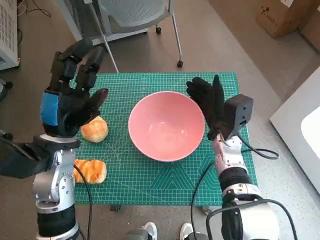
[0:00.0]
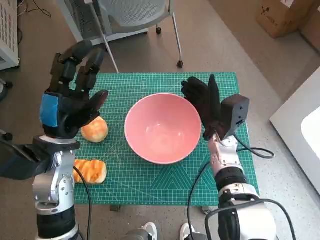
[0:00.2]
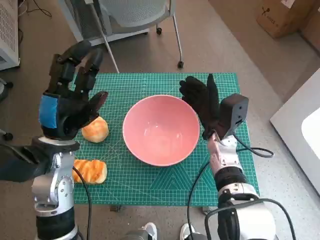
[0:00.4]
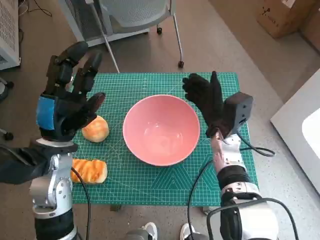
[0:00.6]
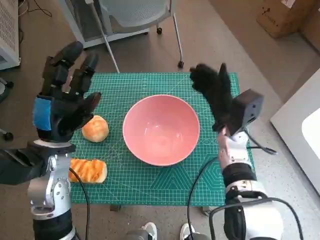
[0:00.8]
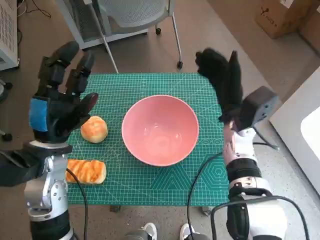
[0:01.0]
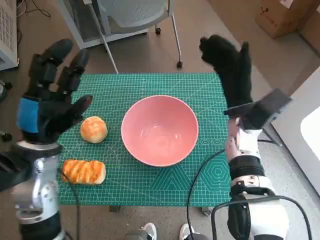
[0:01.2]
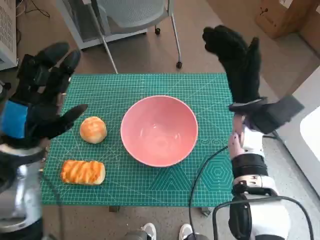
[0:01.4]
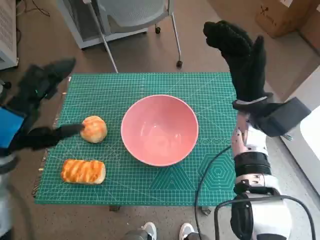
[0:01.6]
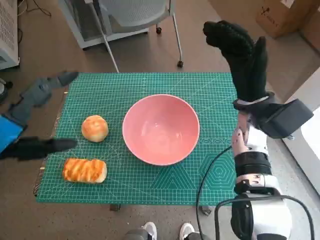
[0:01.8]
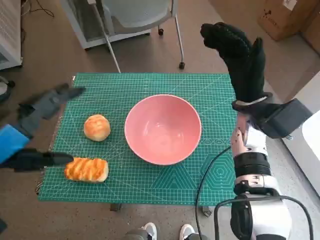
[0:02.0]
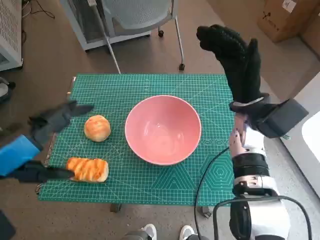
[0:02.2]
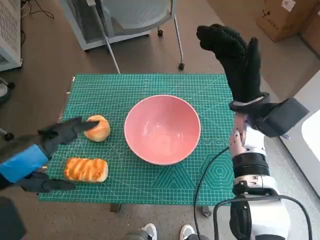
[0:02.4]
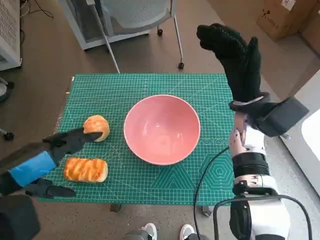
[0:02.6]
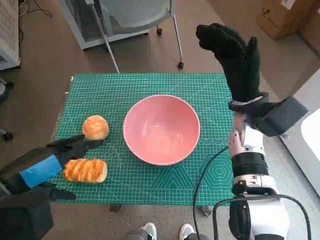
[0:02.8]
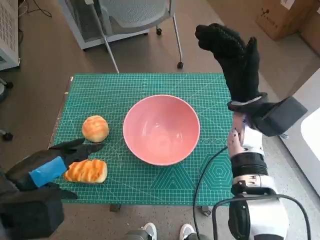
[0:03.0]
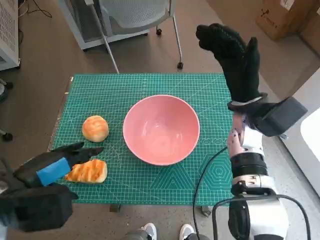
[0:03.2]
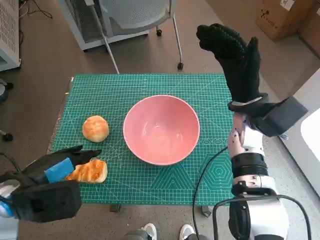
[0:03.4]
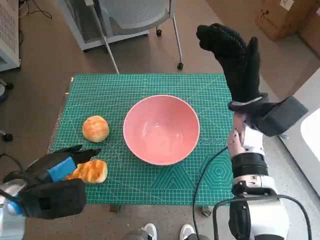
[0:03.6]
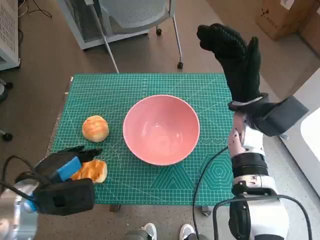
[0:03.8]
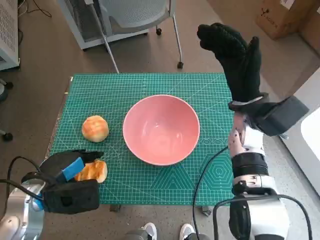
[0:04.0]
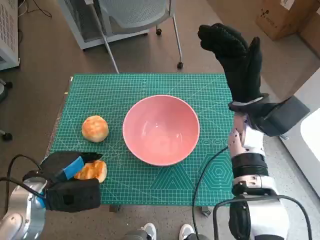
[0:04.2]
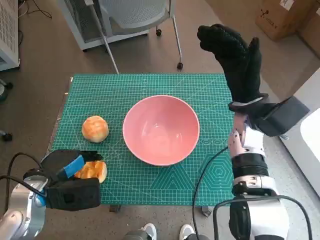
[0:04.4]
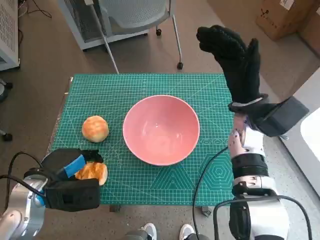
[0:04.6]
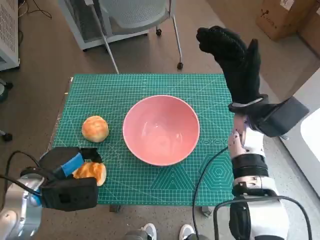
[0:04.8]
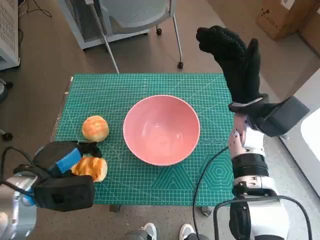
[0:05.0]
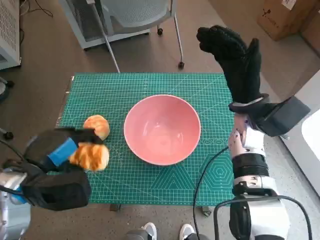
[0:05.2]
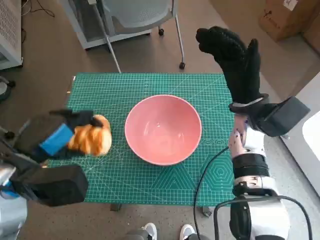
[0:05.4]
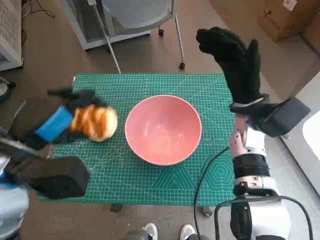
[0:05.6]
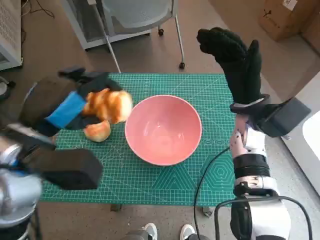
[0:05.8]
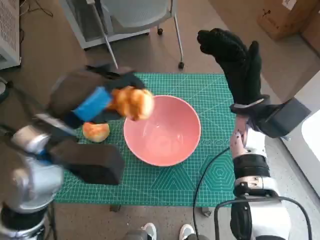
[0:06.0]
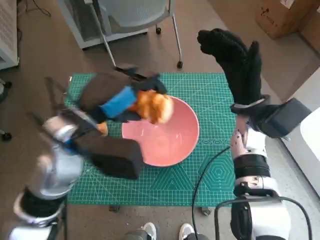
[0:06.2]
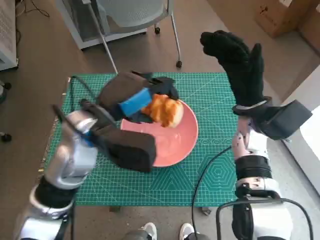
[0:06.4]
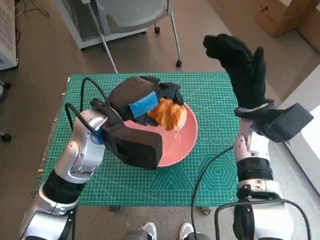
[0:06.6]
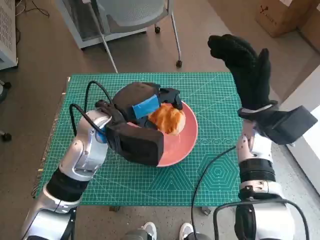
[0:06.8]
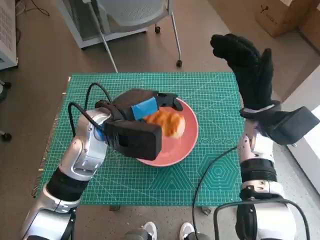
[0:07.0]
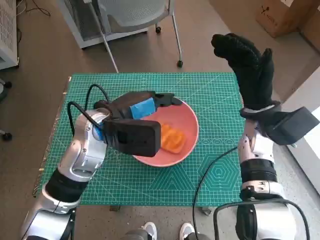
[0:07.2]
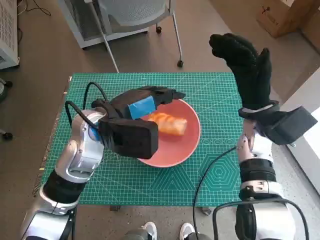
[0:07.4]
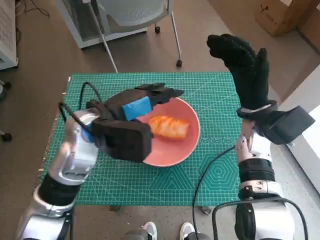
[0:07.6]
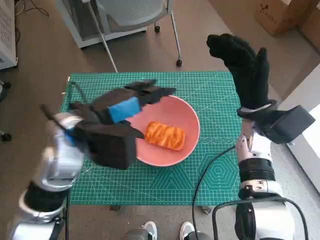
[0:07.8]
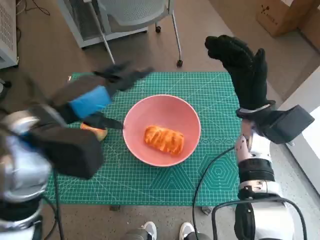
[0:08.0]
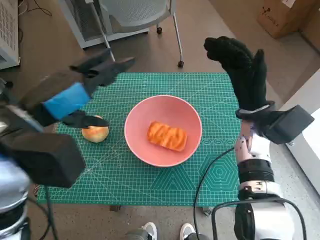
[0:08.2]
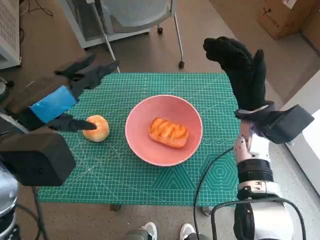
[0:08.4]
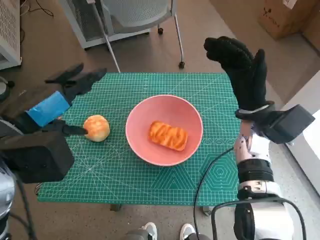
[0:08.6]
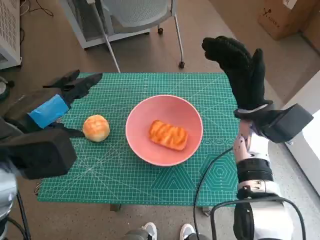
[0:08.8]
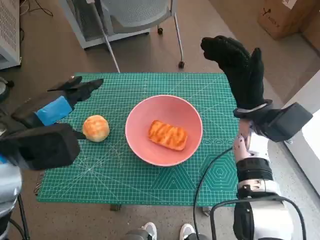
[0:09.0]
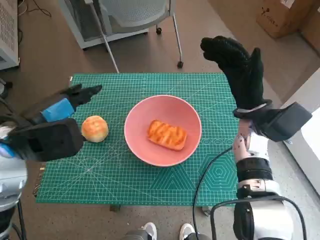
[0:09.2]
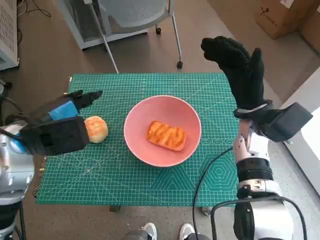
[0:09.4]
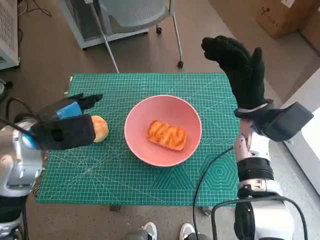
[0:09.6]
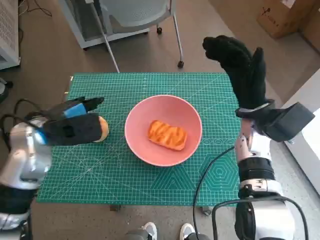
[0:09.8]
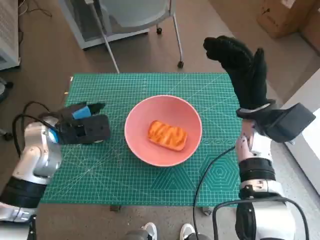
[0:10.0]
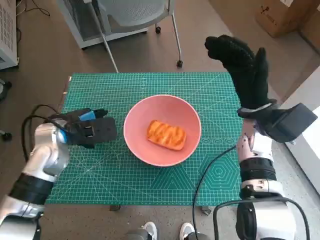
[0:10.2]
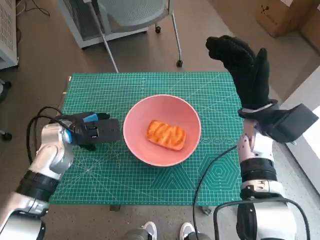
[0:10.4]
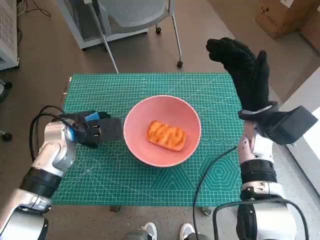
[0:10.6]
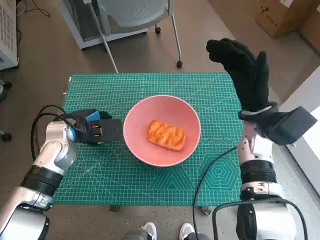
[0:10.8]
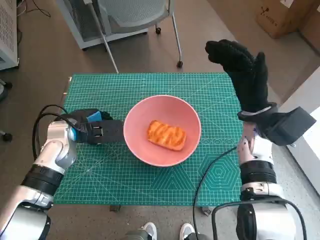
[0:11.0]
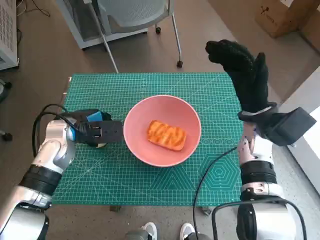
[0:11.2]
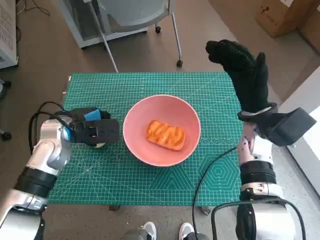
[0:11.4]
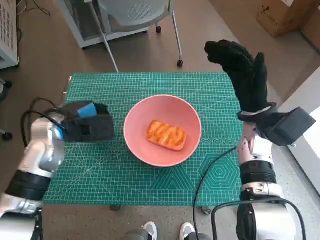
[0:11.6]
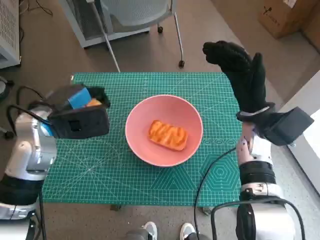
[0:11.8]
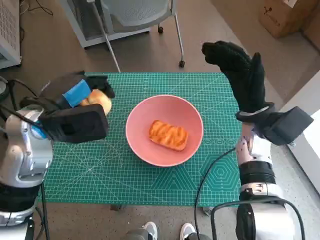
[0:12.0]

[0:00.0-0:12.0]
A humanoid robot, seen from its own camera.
Step, 0:00.8 to 0:04.4: Grasp the long bread with left hand.
Step, 0:04.6 to 0:07.2: Place the long bread in pink bowl with left hand.
Step, 0:07.4 to 0:10.8: Grasp the round bread with left hand.
0:00.0 to 0:01.6: The right hand heads upward, covering roughly 10 cm. Meanwhile the left hand goes roughly 5 cm to the left.
0:03.0 to 0:04.4: The left hand travels downward by roughly 10 cm.
0:04.4 to 0:06.0: The left hand shifts some 15 cm upward and to the right.
0:06.0 to 0:07.6: The left hand goes approximately 5 cm forward.
0:07.6 to 0:09.0: The left hand travels to the left and backward by some 10 cm.
0:09.0 to 0:10.4: The left hand is displaced downward and forward by some 15 cm.
0:10.4 to 0:12.0: The left hand heads upward, covering about 10 cm.

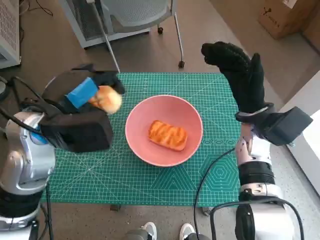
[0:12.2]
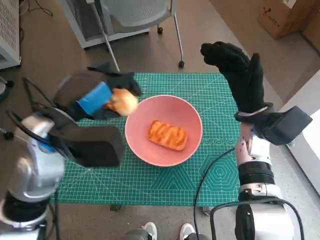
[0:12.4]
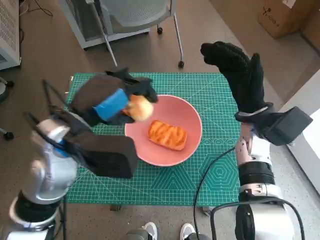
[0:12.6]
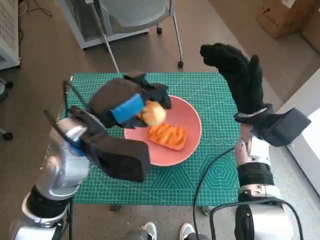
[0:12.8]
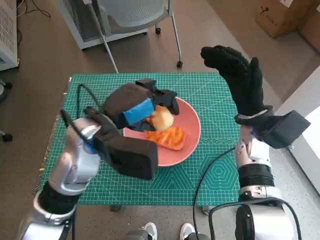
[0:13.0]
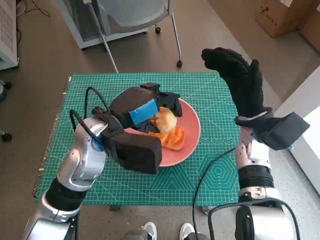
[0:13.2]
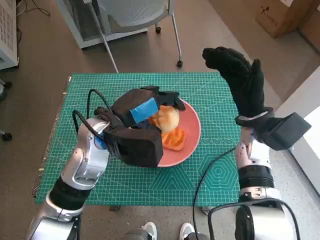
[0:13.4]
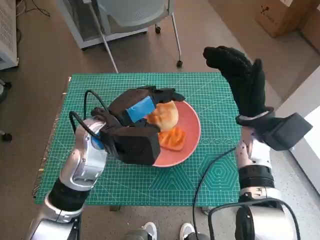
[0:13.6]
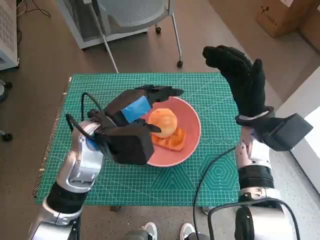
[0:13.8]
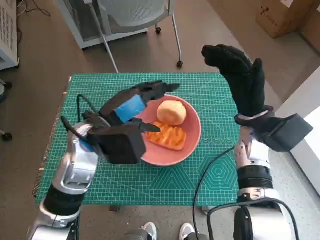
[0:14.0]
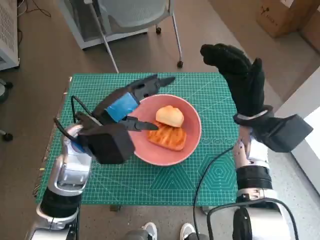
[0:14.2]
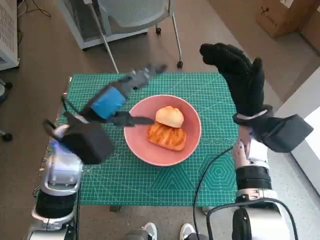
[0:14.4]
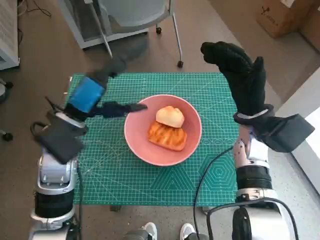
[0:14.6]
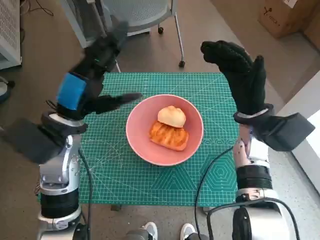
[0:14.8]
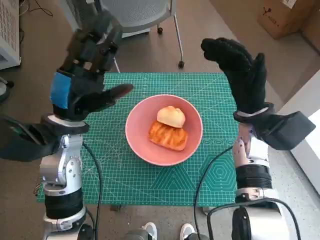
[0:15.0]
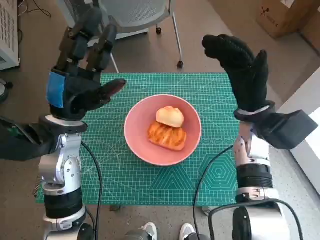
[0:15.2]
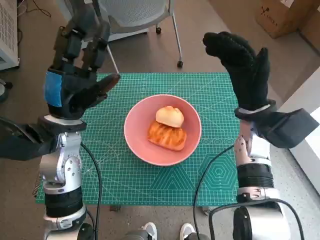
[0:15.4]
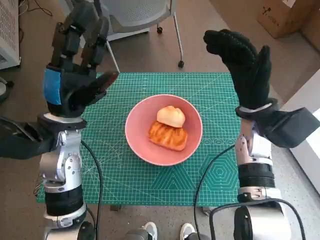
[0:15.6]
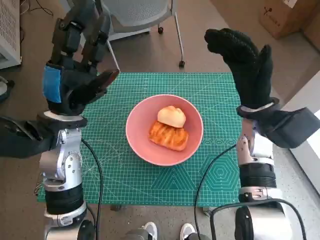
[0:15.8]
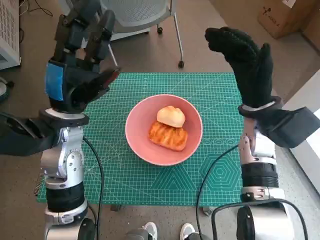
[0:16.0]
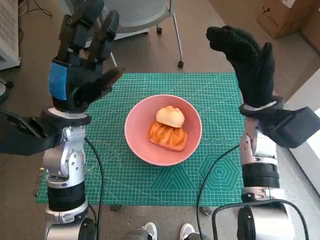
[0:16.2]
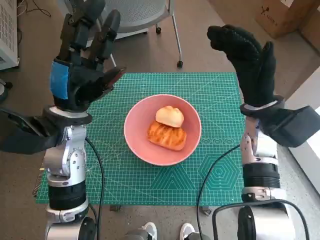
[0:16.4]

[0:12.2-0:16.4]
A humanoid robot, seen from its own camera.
Step, 0:12.2 to 0:13.8: Place the round bread in pink bowl with left hand.
0:12.2 to 0:13.6: The left hand moves to the right, some 10 cm.
0:13.6 to 0:15.0: The left hand moves to the left, about 5 cm.
